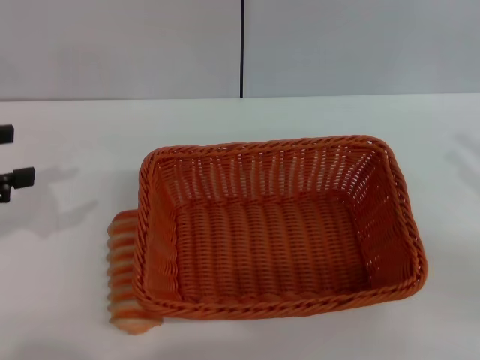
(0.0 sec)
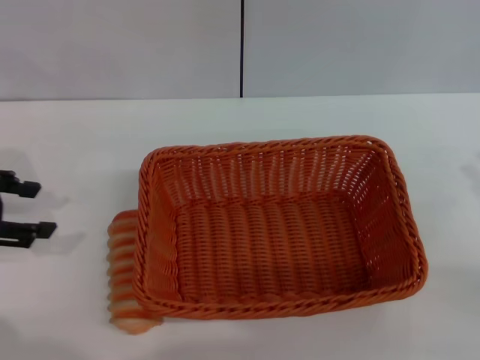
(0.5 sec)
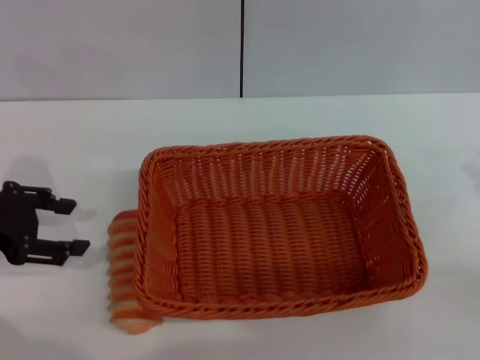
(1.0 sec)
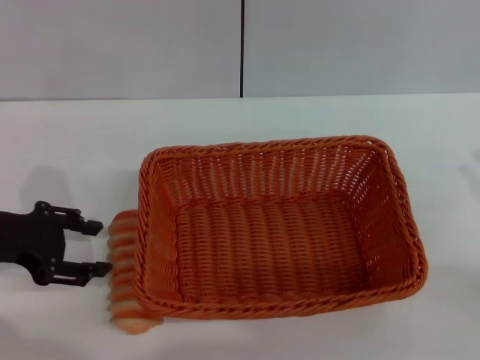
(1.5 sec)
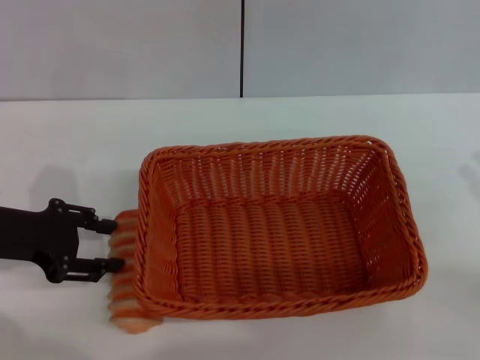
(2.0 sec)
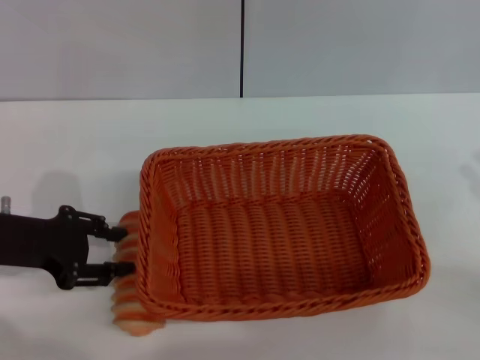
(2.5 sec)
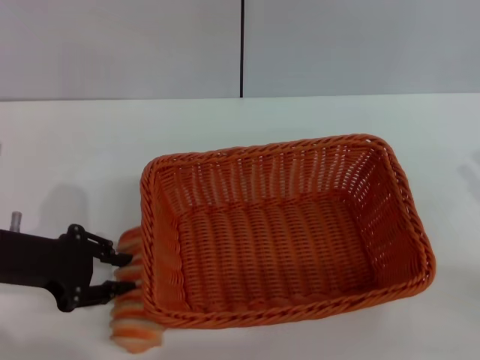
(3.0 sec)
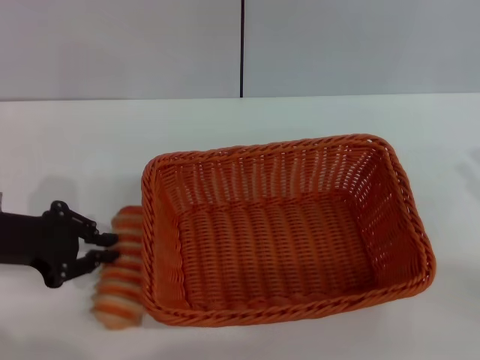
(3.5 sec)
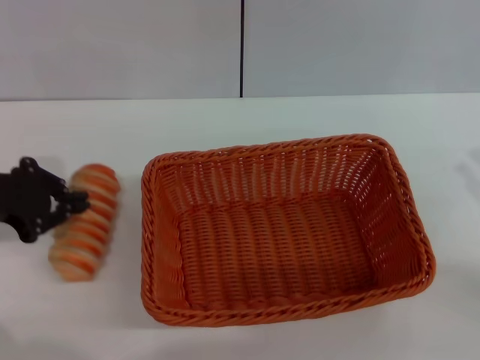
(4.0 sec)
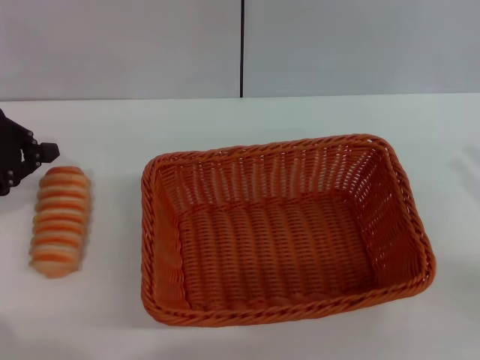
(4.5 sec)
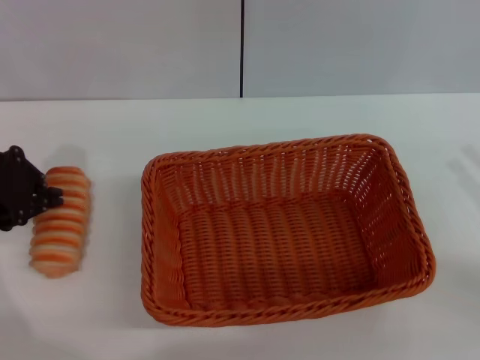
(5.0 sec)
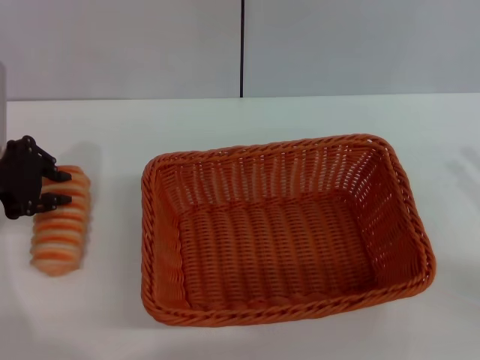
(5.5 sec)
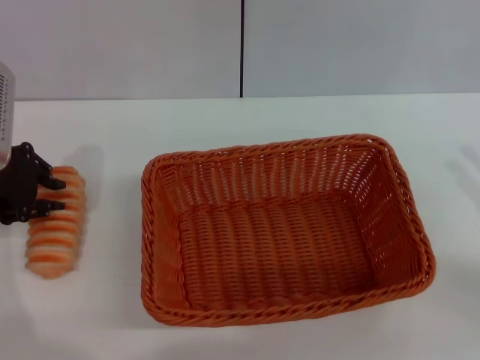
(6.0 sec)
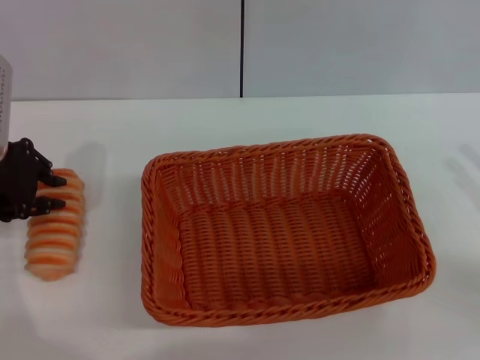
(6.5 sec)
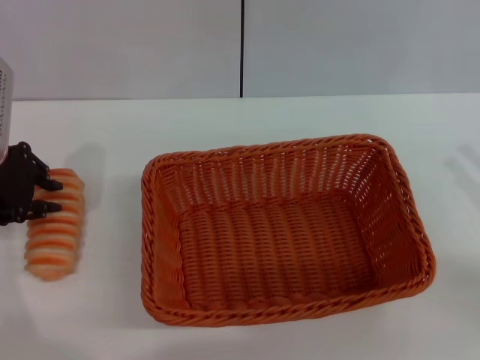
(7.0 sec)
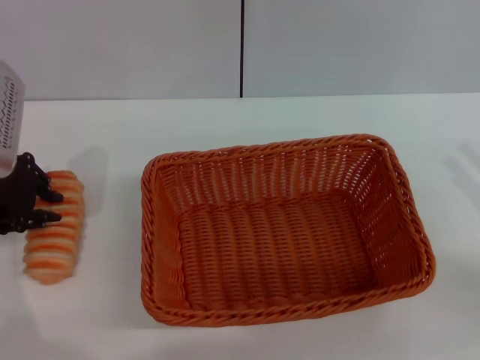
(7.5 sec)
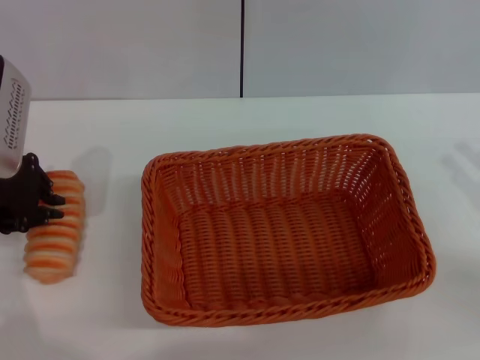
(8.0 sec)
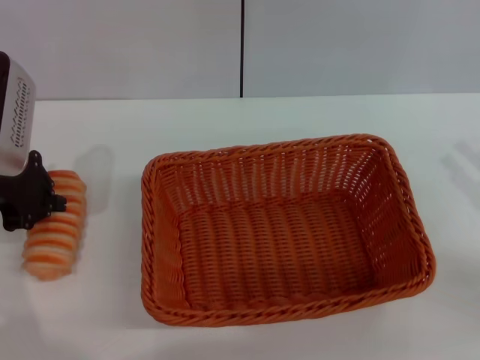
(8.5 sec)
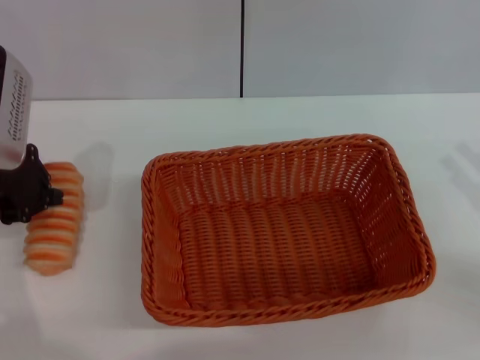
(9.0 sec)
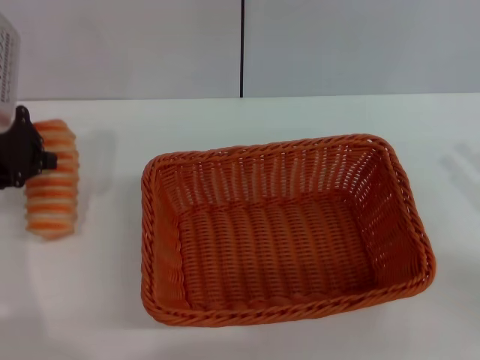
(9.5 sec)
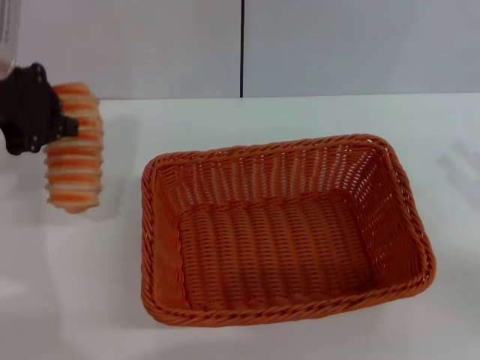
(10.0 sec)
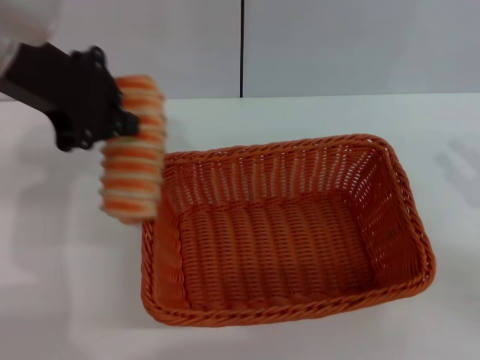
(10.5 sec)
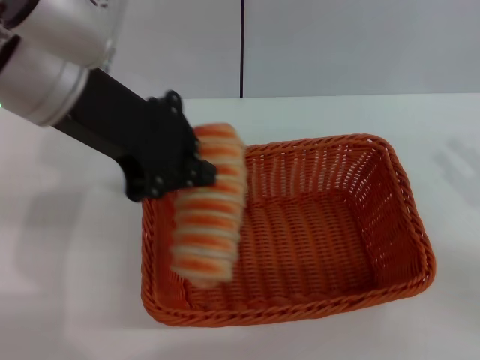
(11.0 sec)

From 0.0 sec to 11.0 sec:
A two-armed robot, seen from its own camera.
Step, from 0.0 sec to 9.5 sec: Pick up the long bread with the left gripper.
From 0.0 sec to 2.0 sec: The left gripper travels downward and to the right by about 10 cm.
From 2.0 sec to 3.5 sec: The left gripper closes up.
From 3.5 sec to 5.5 sec: The left gripper shifts about 5 cm forward and upward.
From 5.5 sec to 7.5 sec: There are only small adjustments of the grippers.
From 7.5 sec to 9.0 sec: Neither gripper changes place.
From 9.0 sec to 11.0 sec: The left gripper moves to the right and upward, approximately 15 cm.

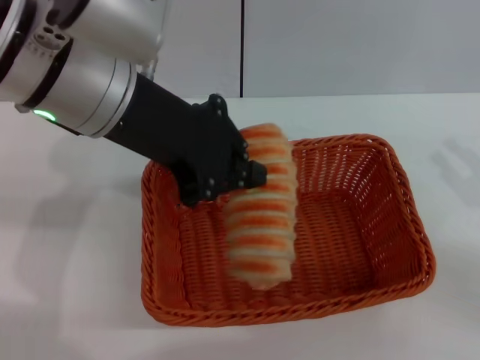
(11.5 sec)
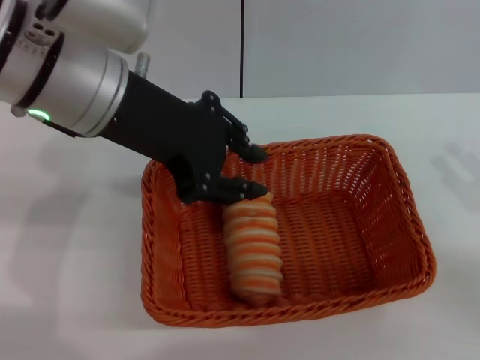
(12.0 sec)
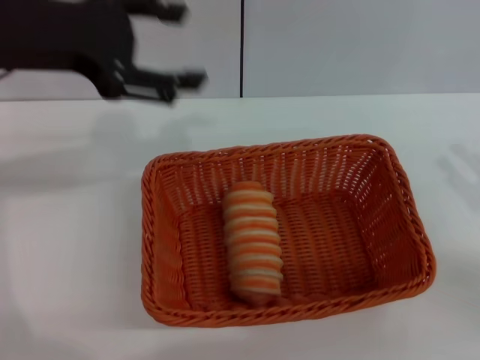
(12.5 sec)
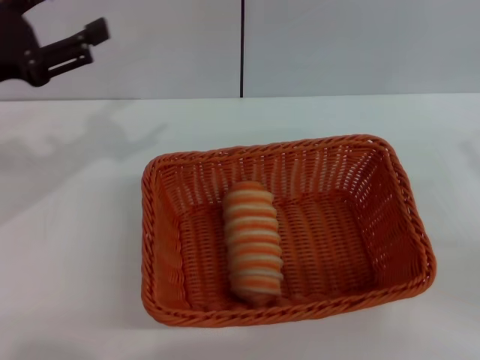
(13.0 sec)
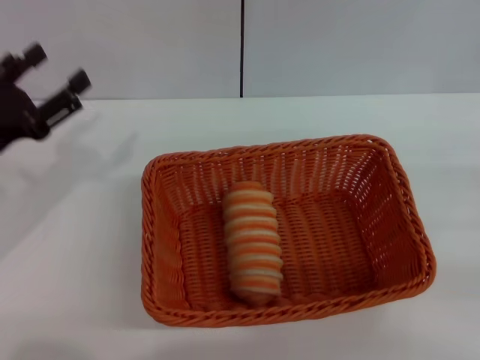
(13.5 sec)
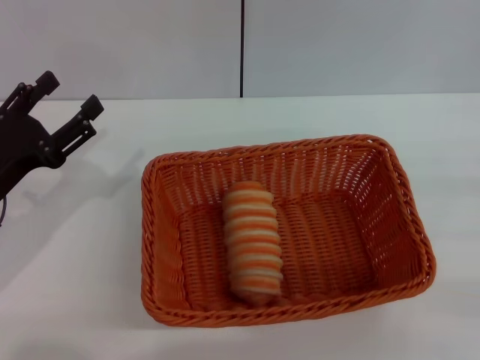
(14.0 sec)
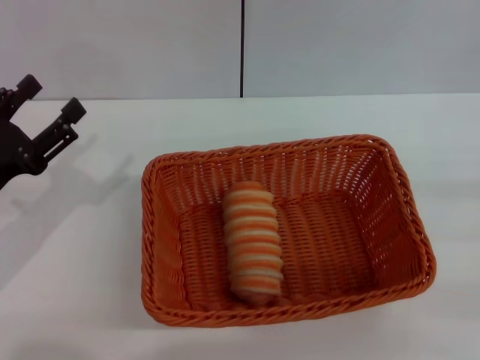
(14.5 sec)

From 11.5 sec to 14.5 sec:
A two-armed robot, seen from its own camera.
From 11.5 sec to 13.0 sec: The left gripper travels to the left and downward by roughly 20 cm, and opens up.
From 13.0 sec to 14.5 sec: The left gripper moves downward and backward, approximately 10 cm.

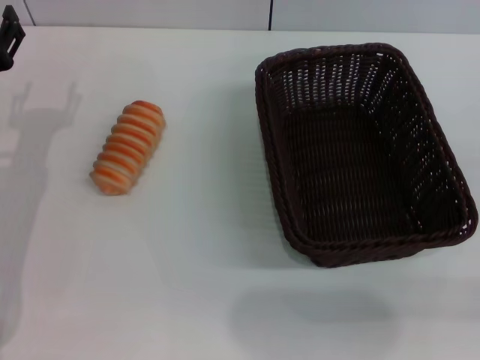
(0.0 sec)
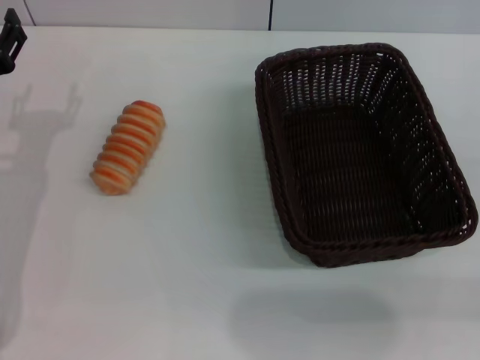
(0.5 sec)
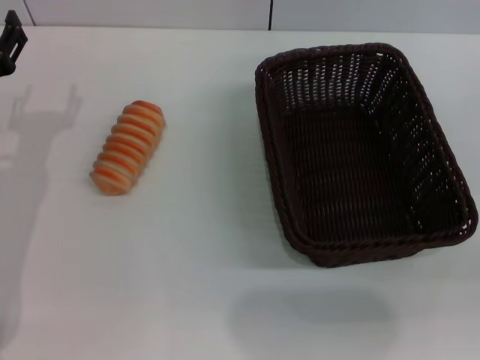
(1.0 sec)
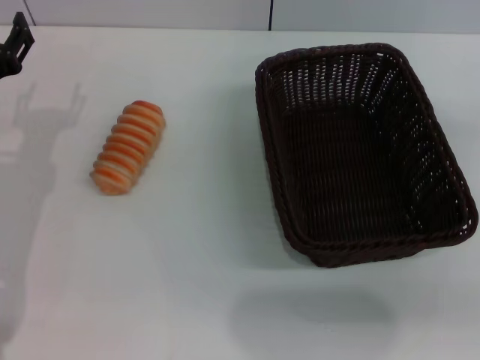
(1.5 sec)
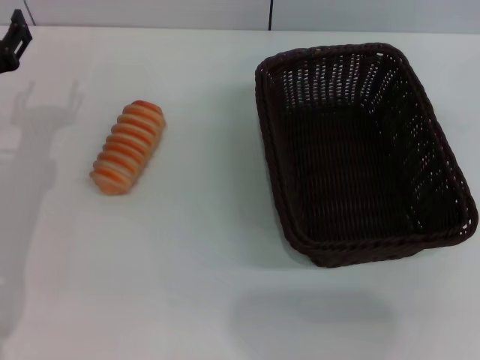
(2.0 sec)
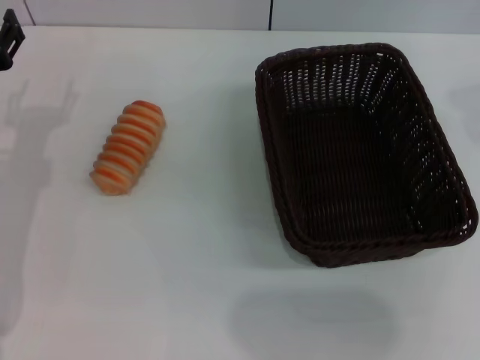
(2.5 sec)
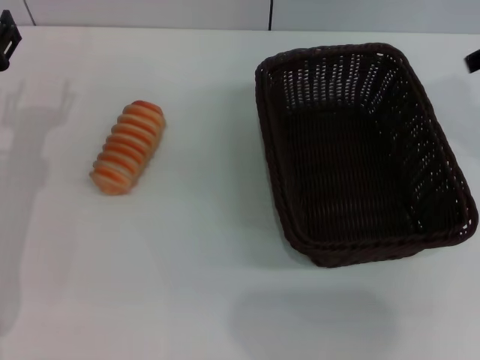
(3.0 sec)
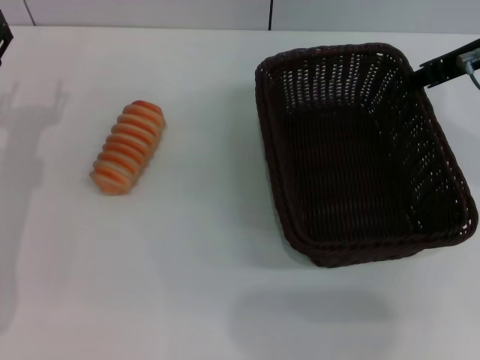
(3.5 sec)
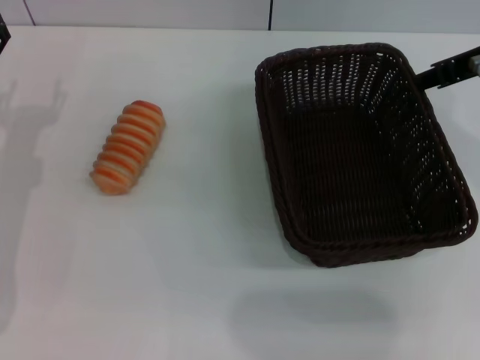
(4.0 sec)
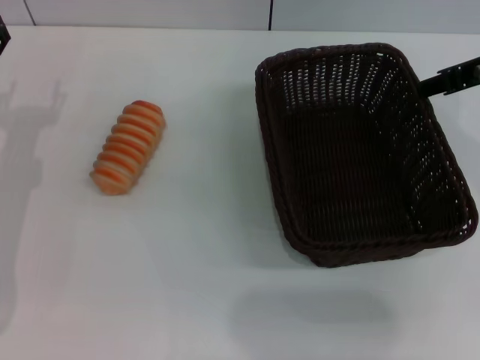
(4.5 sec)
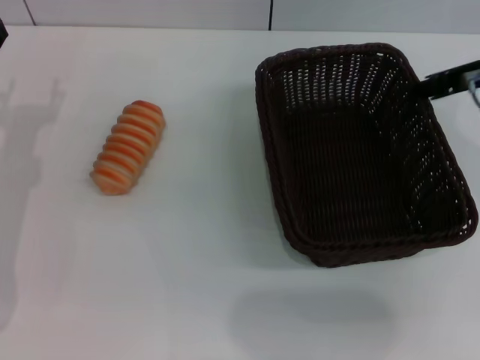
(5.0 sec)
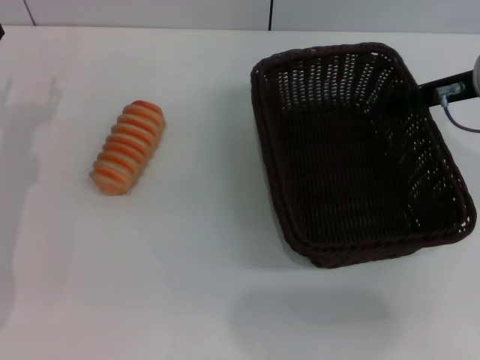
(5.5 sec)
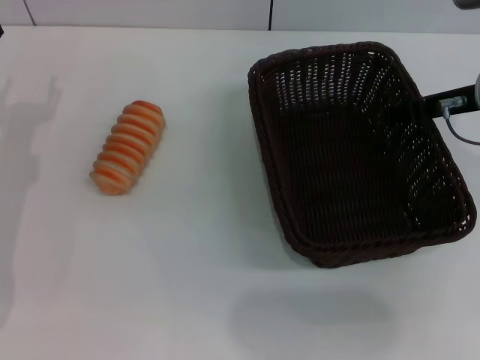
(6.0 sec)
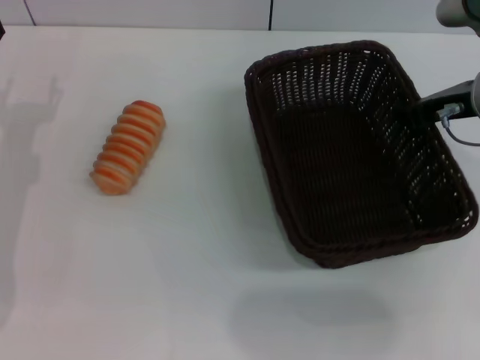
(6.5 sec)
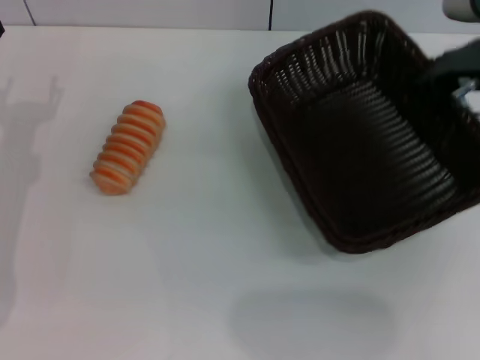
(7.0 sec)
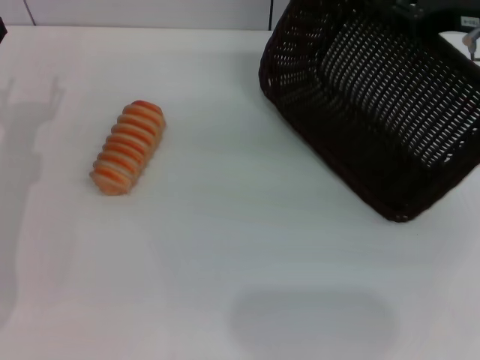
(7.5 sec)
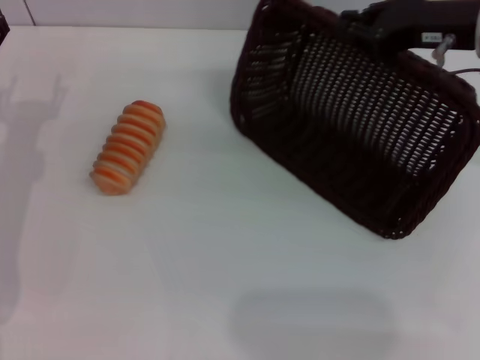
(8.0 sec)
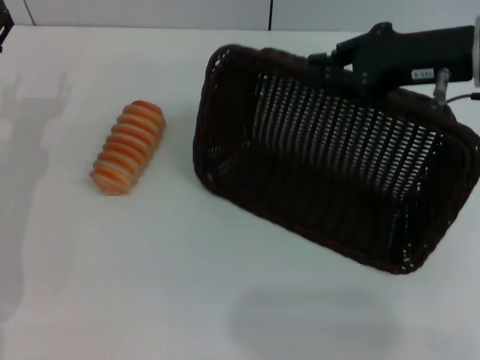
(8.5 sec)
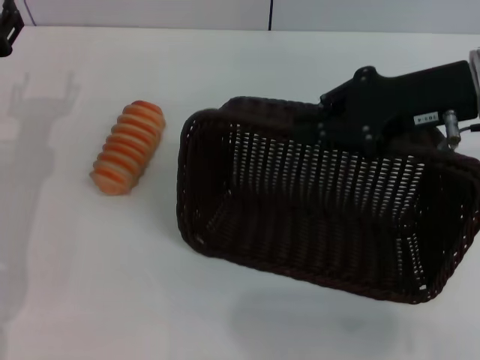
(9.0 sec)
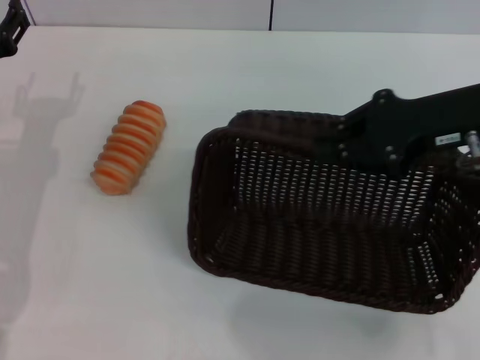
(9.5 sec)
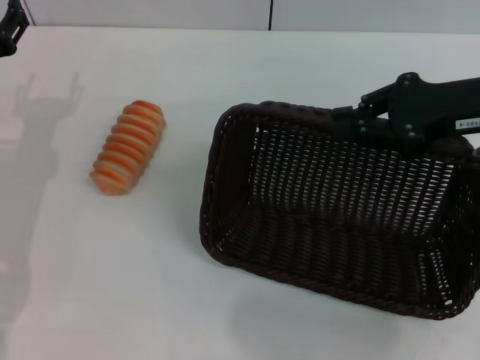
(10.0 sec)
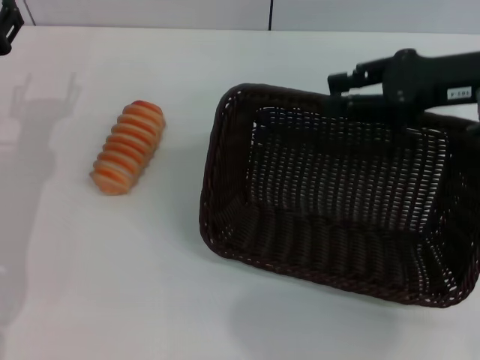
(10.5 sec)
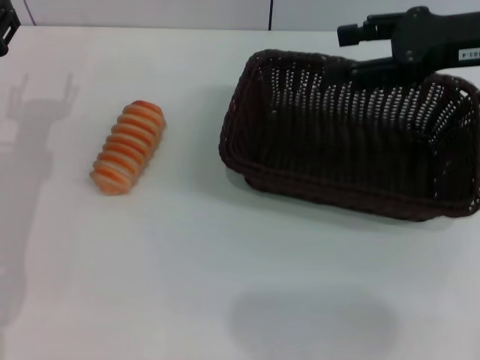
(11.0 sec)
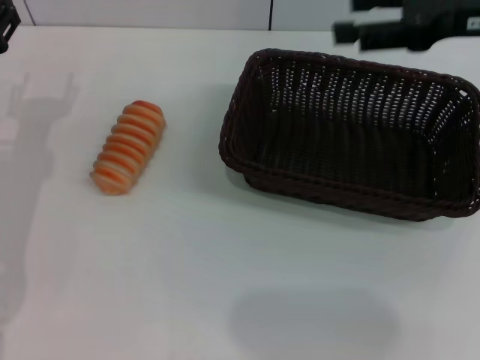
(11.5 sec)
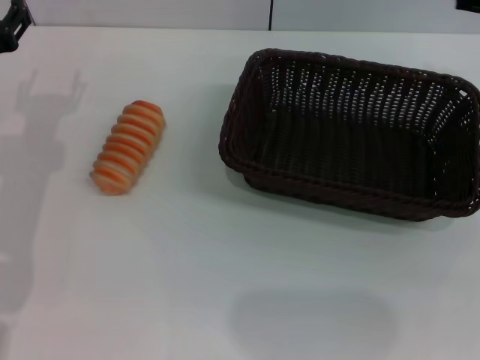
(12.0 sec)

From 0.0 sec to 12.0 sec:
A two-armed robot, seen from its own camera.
Step, from 0.0 sec to 7.0 sec: Pick up the dark basket with the right gripper.
Step, from 7.5 sec to 11.0 sec: Place the dark basket in the center of view with the right gripper.
From 2.0 sec to 4.0 sec: The right gripper is displaced to the left and downward by some 15 cm.
From 4.0 sec to 6.0 sec: The right gripper travels downward by about 5 cm.
From 6.0 sec to 8.0 sec: The right gripper closes.
From 8.0 sec to 10.0 sec: The right gripper moves roughly 5 cm.
From 10.0 sec to 12.0 sec: The right gripper is displaced to the right by approximately 5 cm, and opens.
